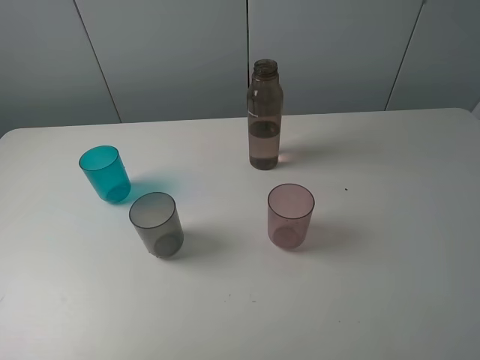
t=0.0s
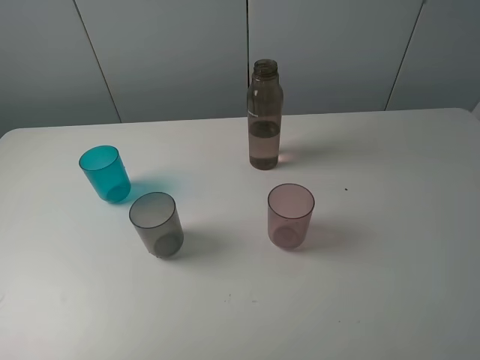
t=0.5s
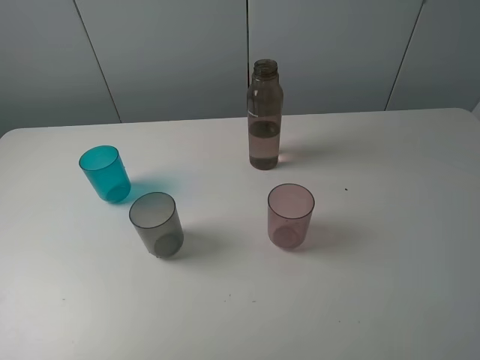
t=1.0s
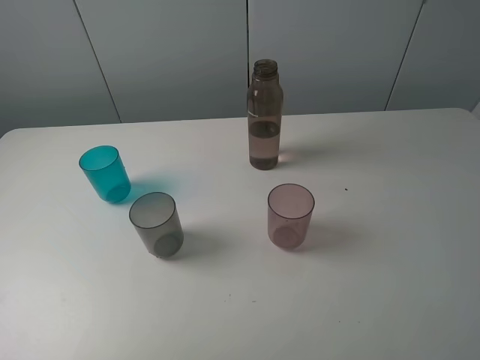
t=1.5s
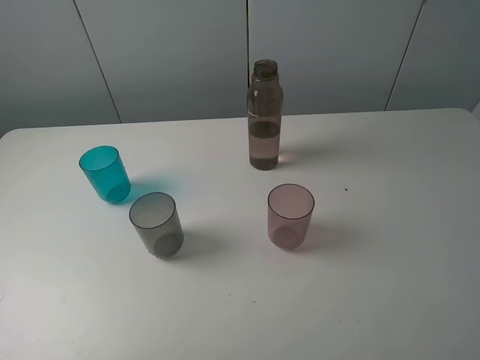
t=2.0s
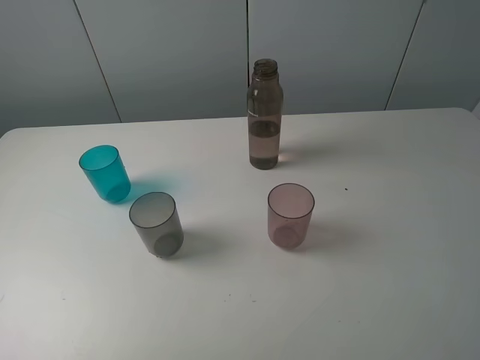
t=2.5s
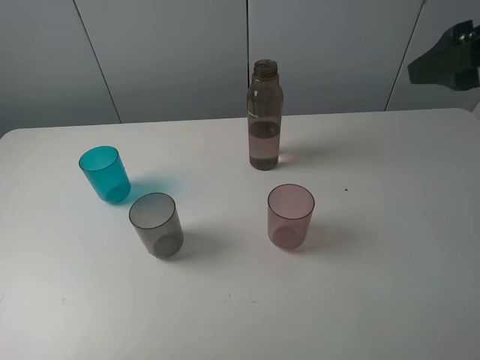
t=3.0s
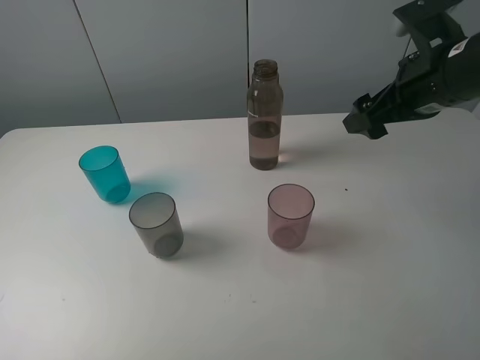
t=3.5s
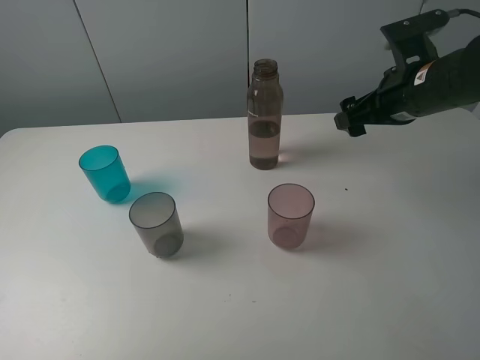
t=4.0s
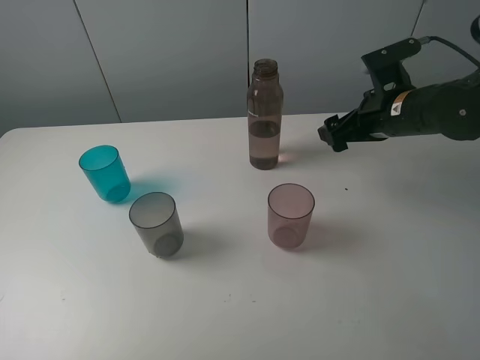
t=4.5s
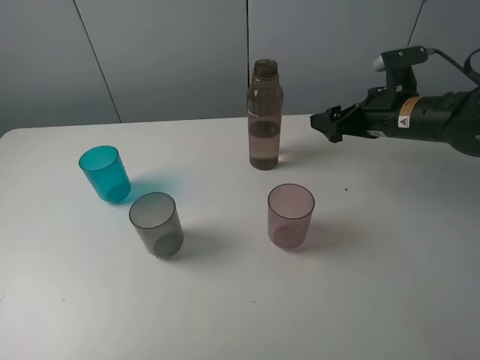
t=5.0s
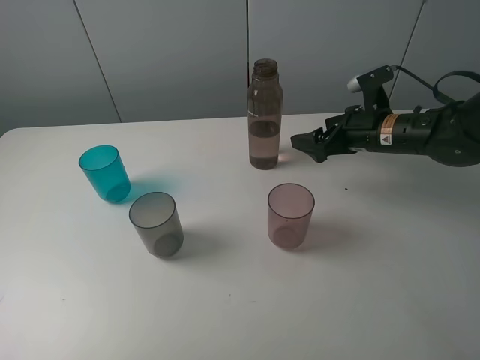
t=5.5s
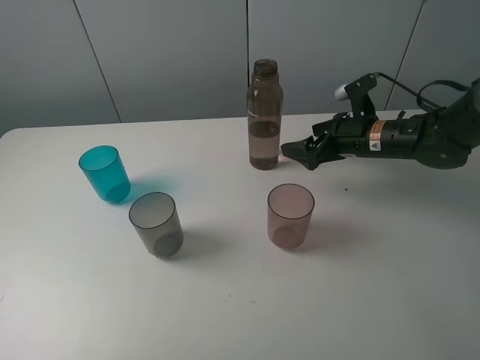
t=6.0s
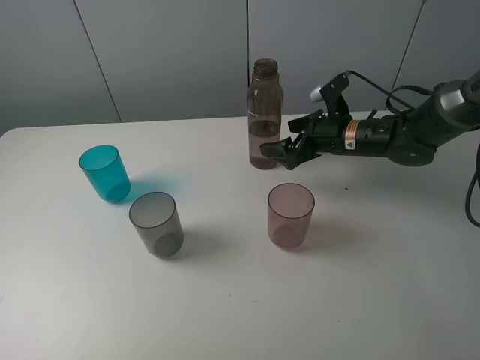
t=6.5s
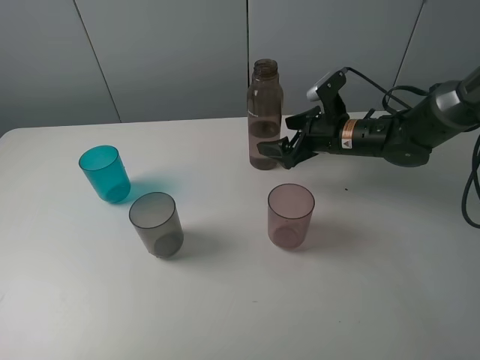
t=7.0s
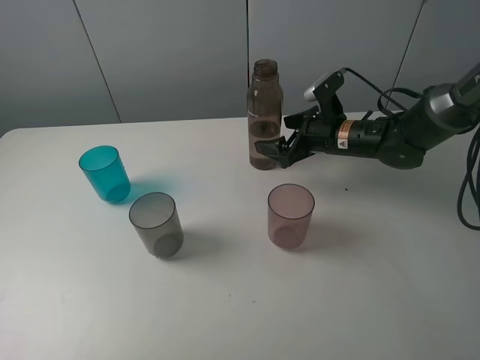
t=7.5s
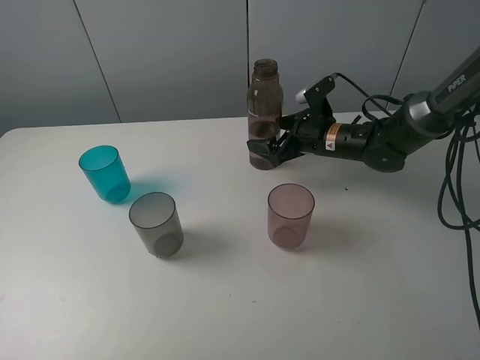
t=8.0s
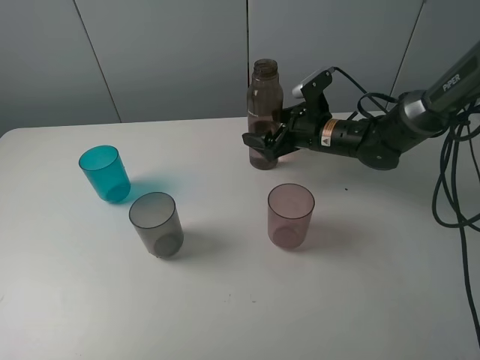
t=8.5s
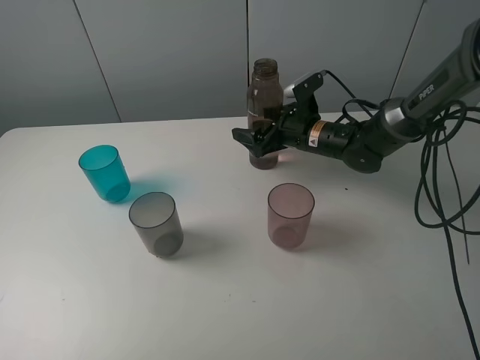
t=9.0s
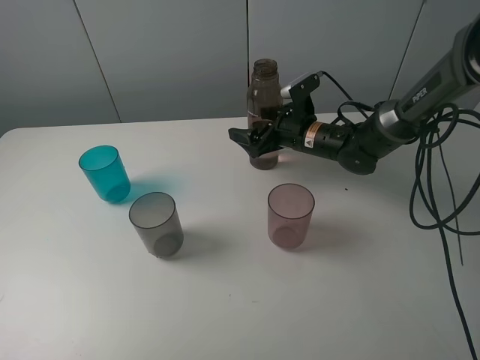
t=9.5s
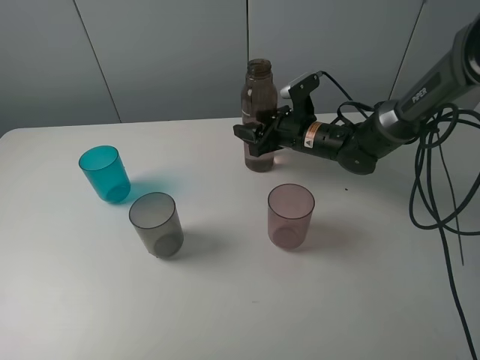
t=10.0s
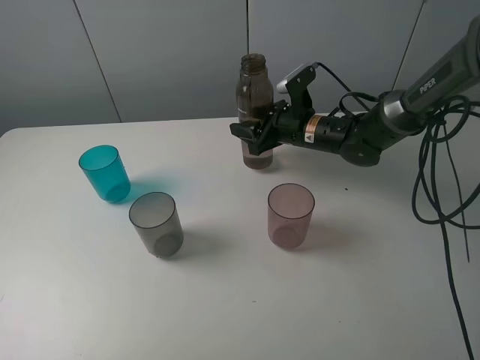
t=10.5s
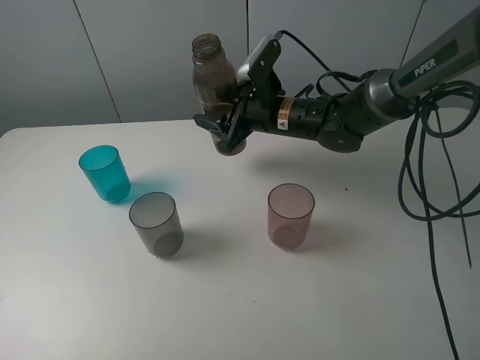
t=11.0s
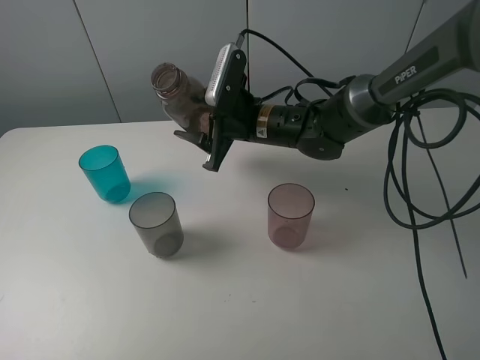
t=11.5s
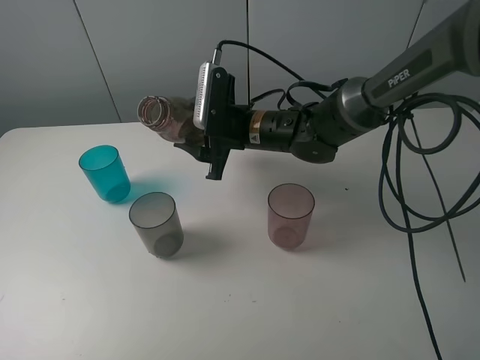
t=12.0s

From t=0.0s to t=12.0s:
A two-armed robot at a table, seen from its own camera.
Task of the whole recording: pick up the bottle filled with water and pour water into the middle cup of the three cups.
Step, from t=0.0s to t=10.0s: Grasp the transparent bottle with the right gripper.
From t=0.0s to t=2.0s: The two grippers keep their place.
From t=2.0s to t=4.0s: The right gripper travels forward by roughly 30 cm.
From t=4.0s to t=6.0s: The right gripper heads downward, covering approximately 10 cm.
From t=6.0s to t=8.0s: The right gripper changes place by roughly 5 cm.
From t=8.0s to t=10.0s: The right gripper closes up.
From t=10.0s to t=12.0s: The right gripper moves to the left, upward and backward, some 15 cm.

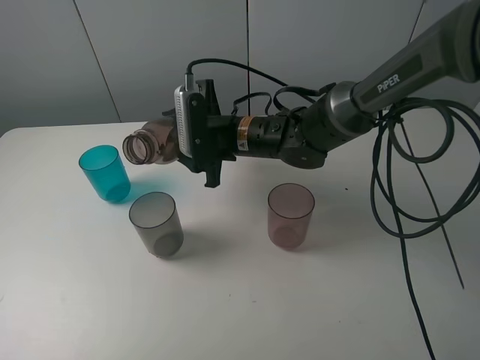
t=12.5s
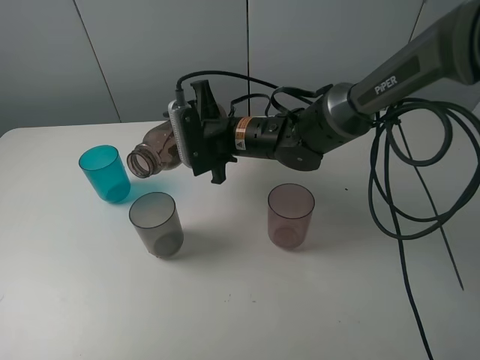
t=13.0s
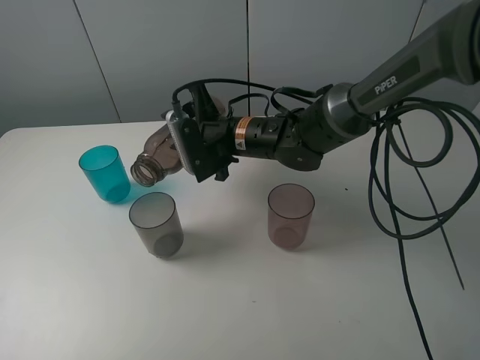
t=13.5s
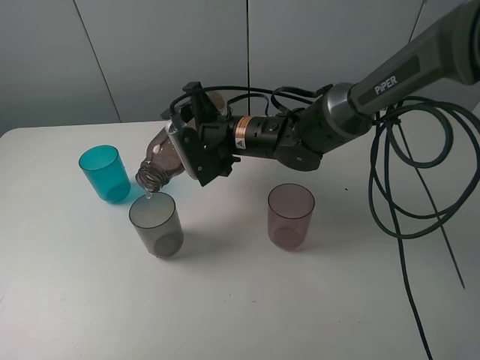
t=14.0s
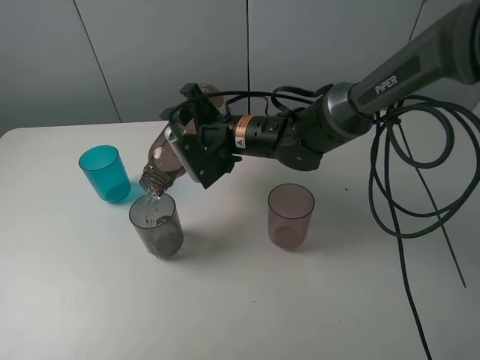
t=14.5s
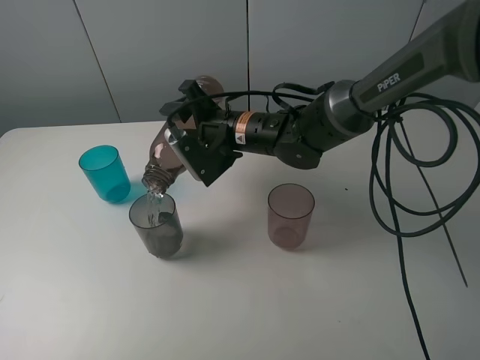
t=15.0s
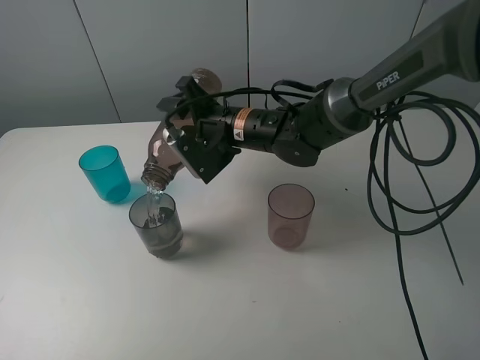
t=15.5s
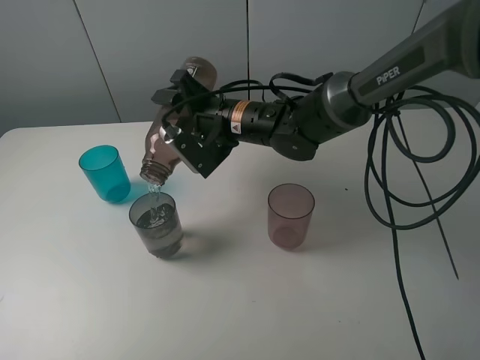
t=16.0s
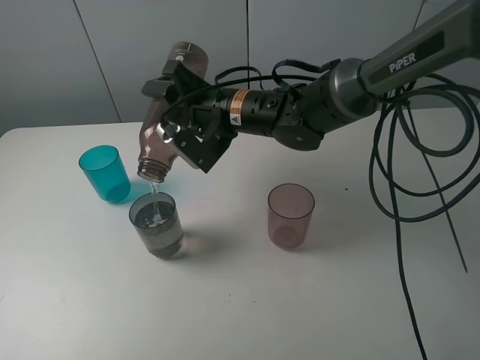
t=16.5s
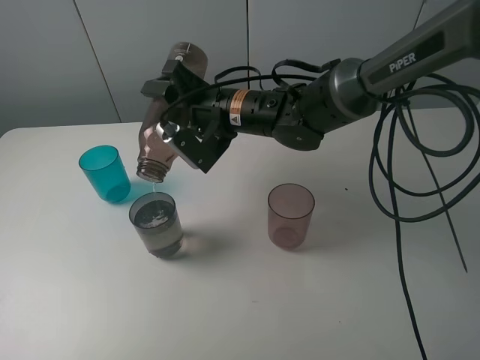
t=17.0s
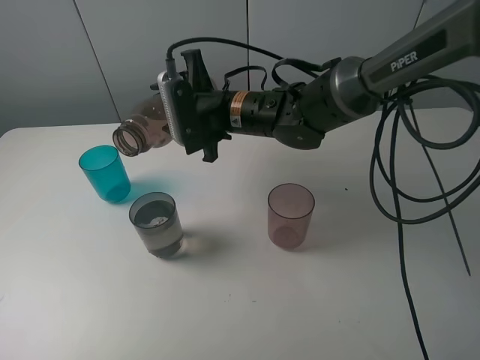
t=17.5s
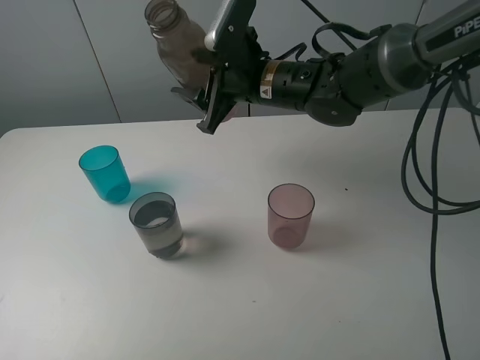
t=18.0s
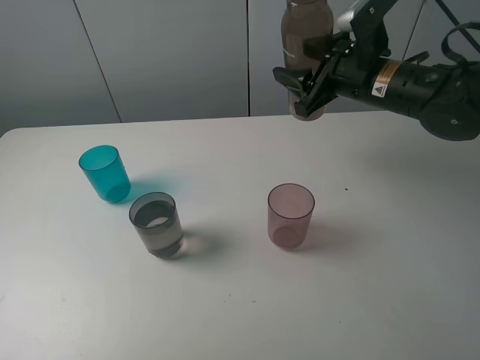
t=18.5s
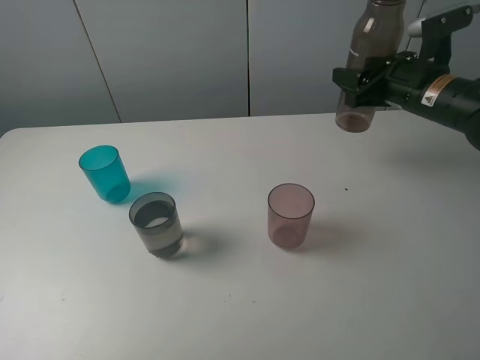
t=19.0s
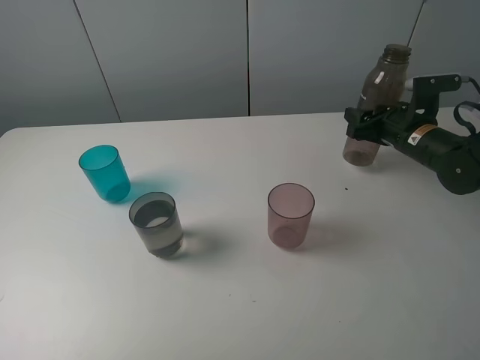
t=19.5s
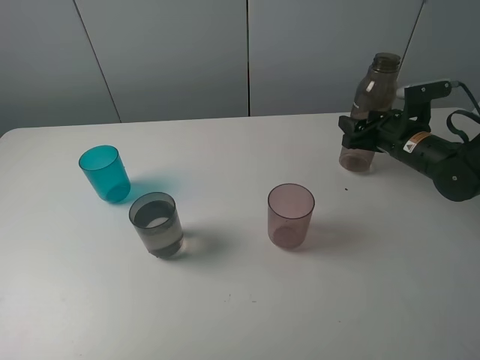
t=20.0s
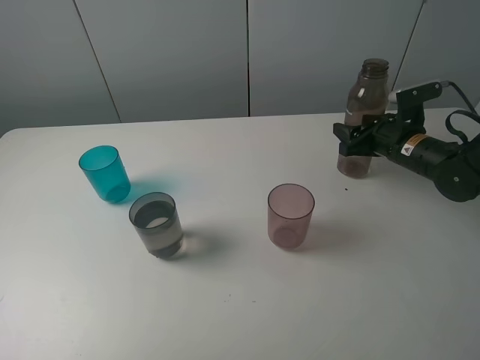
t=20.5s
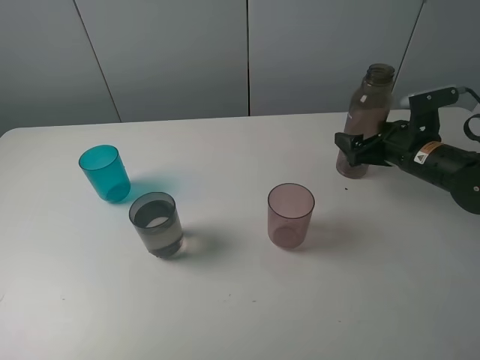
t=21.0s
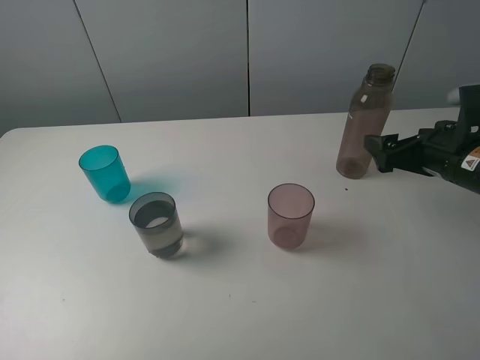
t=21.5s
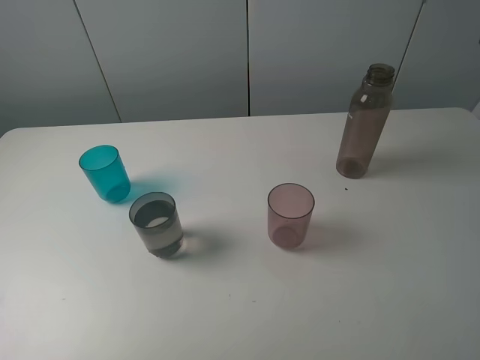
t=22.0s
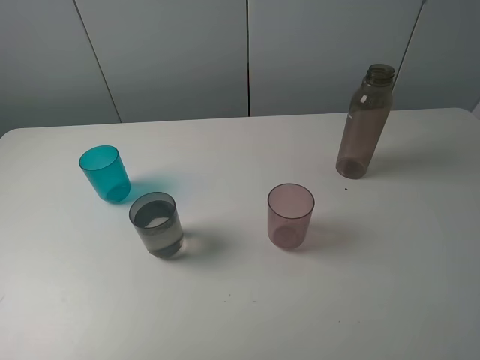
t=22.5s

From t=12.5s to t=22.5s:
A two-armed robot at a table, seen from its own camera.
Task of the whole recording: pick up the bottle filled with water and pour water into the middle cup of the three cups.
Step, from t=13.5s to t=21.5s: Place the transparent bottle with the right gripper.
From t=14.5s to t=16.5s: The grippers make only small movements.
From t=16.5s to t=18.5s: The right gripper moves to the right, some 20 cm.
From t=18.5s to t=20.5s: The right gripper is displaced downward and to the right by some 15 cm.
From t=20.5s to t=22.5s: The right gripper heads backward and upward, covering roughly 40 cm, and opens.

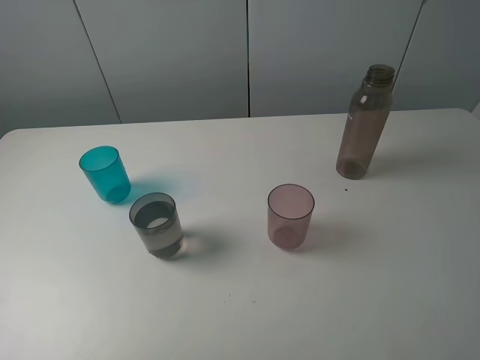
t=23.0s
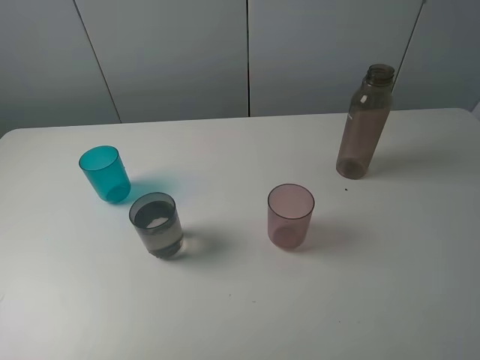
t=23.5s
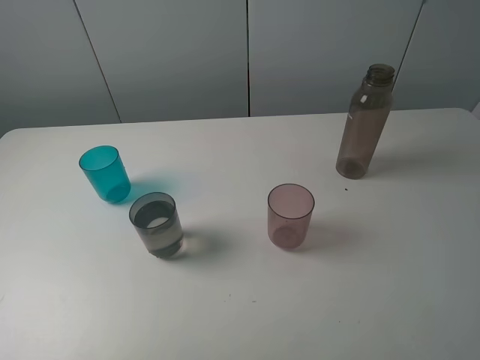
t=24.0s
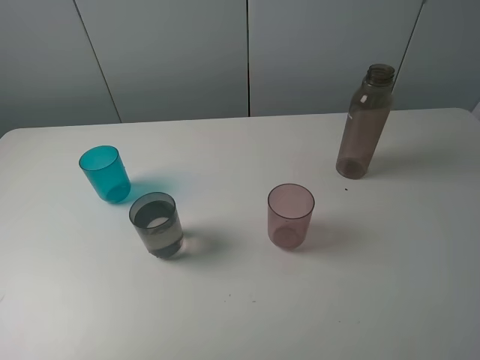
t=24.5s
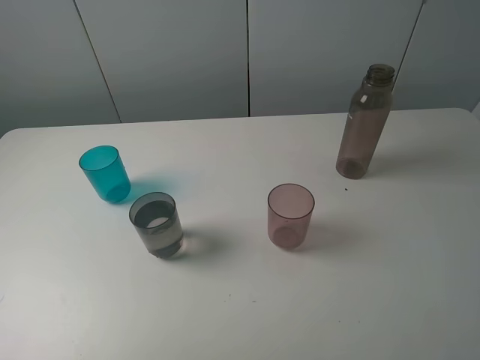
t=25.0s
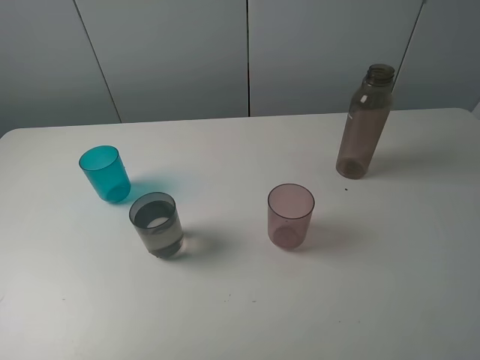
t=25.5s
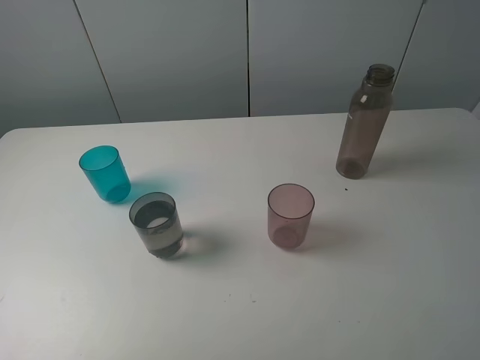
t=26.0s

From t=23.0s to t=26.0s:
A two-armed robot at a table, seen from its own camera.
Task of the whole recording: pick up the bottle filled with water and pour water into the middle cup of the three cups.
From t=24.5s to t=26.0s: The two grippers keep their place.
